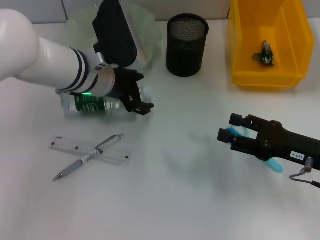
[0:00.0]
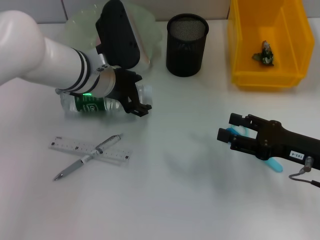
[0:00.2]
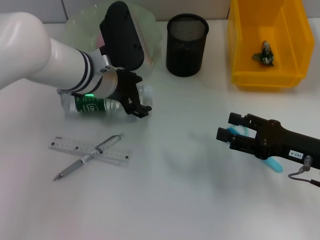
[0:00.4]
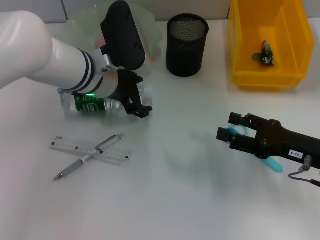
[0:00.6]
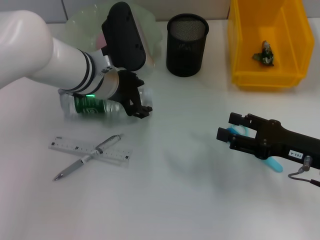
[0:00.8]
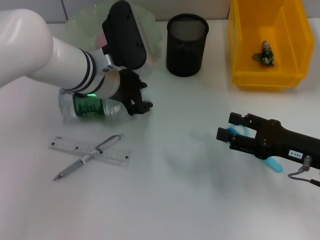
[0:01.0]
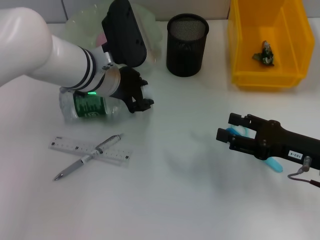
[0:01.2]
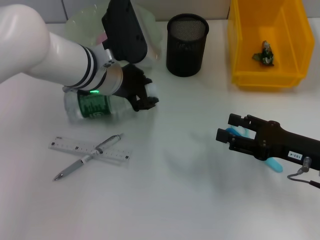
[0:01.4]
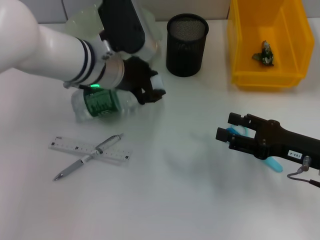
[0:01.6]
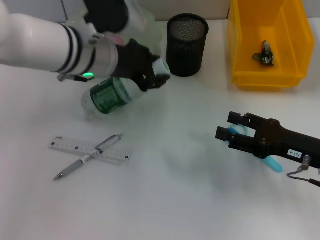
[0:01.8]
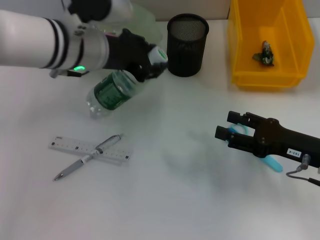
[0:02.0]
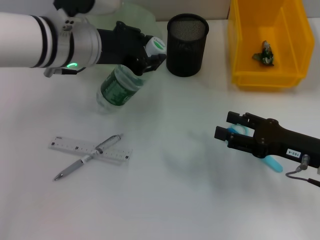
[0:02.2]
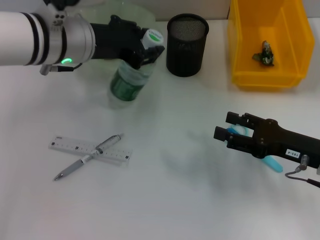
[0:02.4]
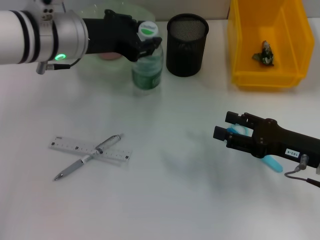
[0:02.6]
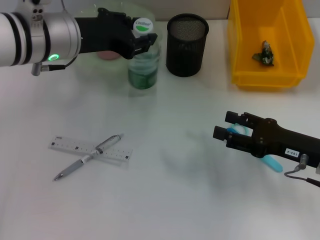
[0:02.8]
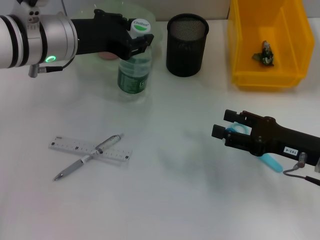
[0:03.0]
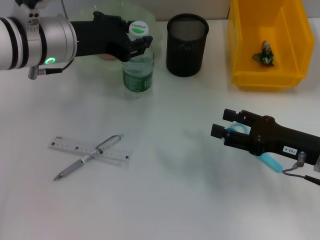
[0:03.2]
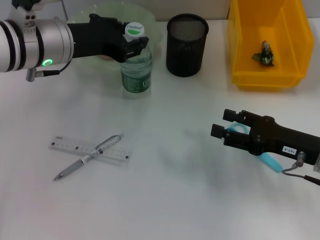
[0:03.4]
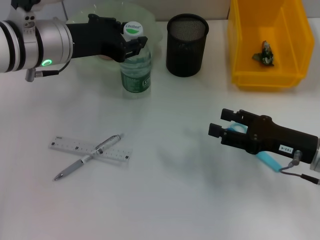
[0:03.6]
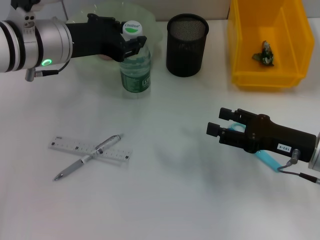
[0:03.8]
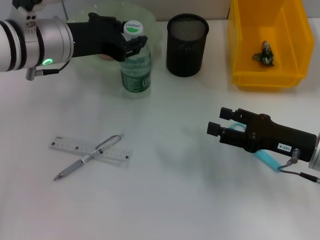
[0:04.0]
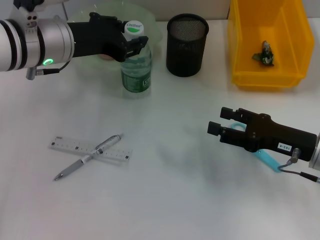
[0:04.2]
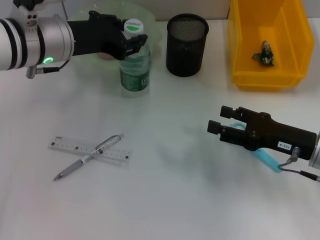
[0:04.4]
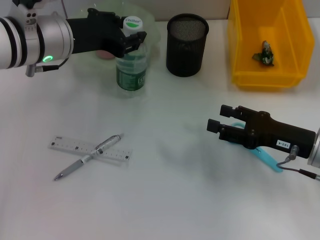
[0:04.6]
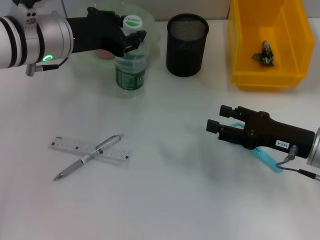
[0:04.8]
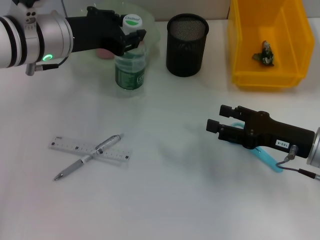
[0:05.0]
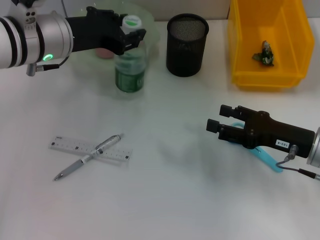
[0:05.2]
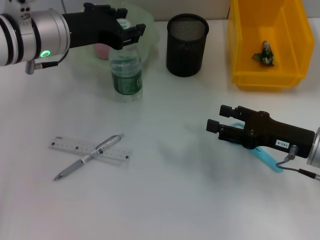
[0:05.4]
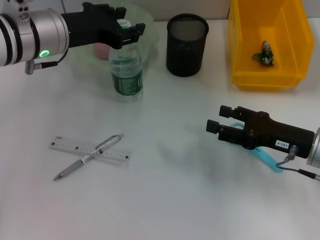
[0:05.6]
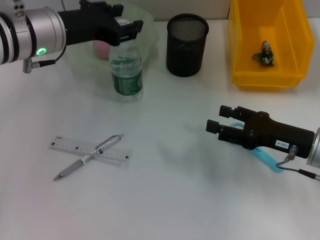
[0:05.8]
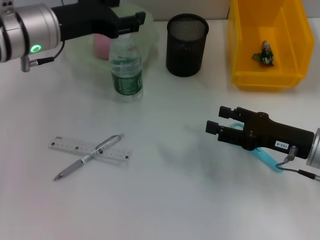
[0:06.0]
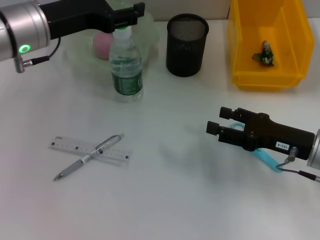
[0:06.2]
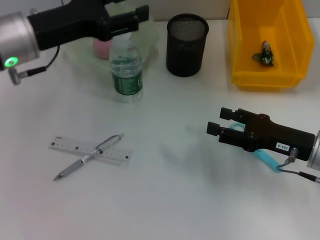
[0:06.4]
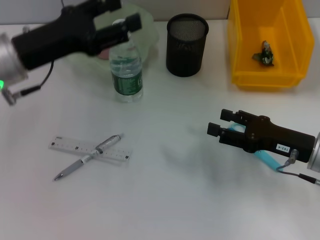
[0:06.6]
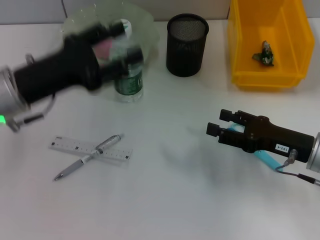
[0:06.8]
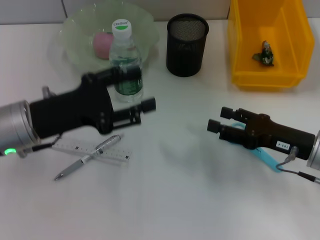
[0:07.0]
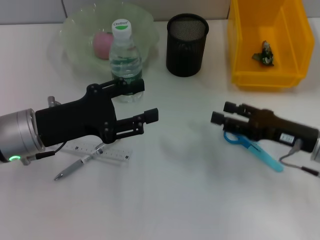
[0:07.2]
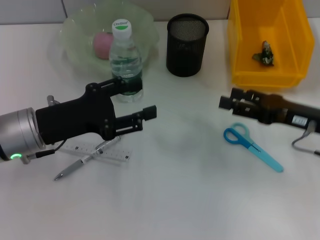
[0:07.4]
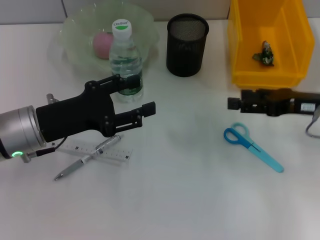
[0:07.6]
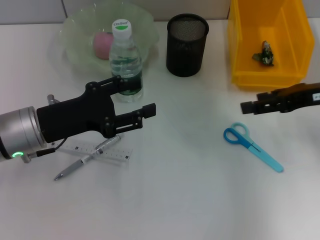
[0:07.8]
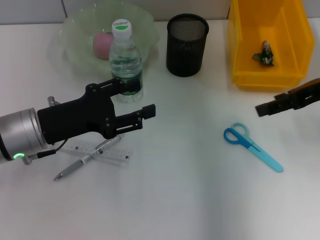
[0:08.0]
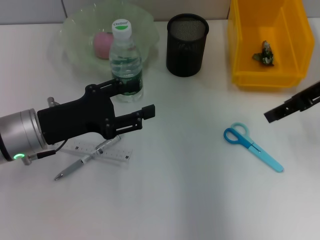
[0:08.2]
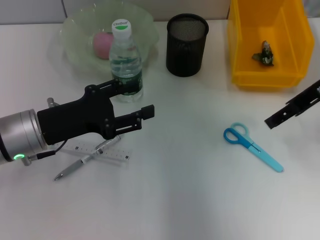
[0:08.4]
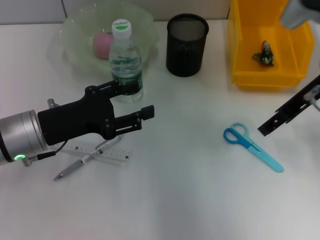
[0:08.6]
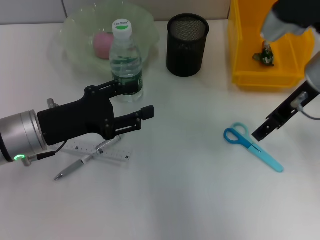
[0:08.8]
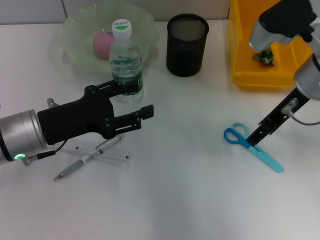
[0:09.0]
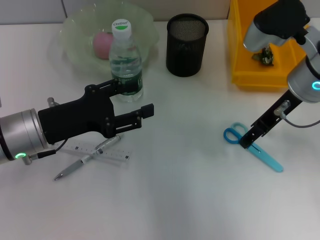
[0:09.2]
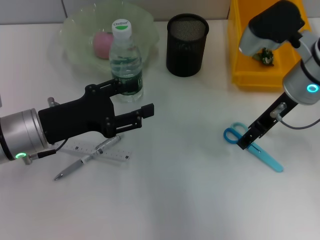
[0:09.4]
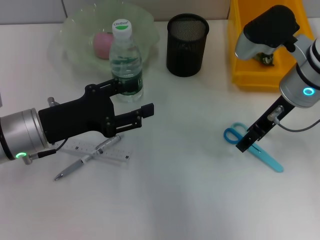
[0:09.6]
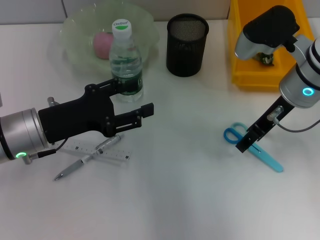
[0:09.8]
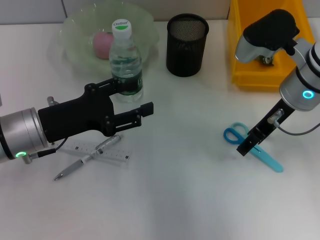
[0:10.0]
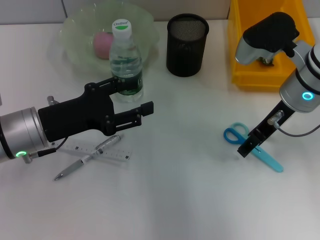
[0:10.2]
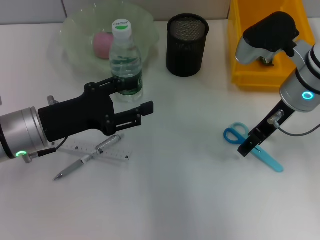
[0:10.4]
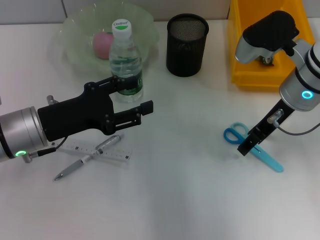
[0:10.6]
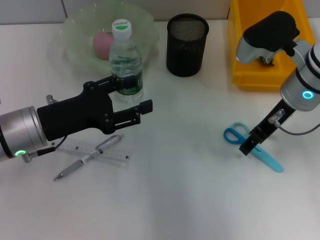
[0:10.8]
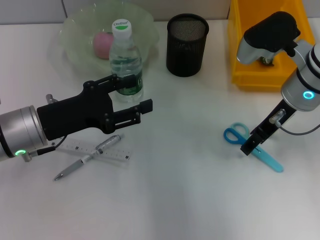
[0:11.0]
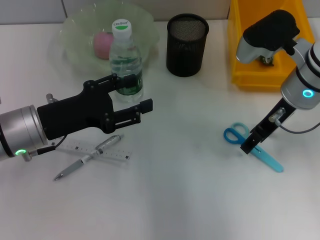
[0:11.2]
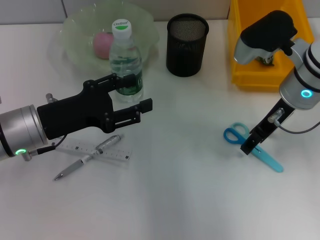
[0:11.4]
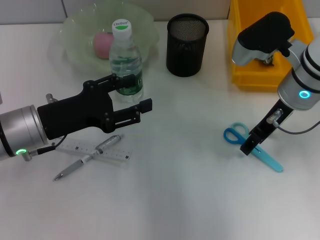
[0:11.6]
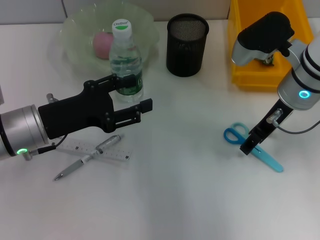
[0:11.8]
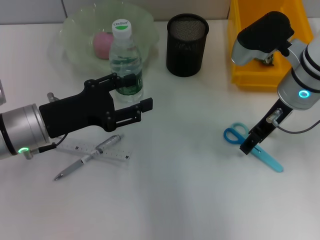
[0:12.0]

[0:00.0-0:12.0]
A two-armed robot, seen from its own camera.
Step, 0:01.2 to 0:06.0: Place the water bottle on the table with the left hand.
0:00.0 to 0:01.6: The left gripper closes its fingers.
0:01.6 to 0:03.0: The left gripper travels to the left by roughly 5 cm.
0:03.0 to 0:04.4: Both grippers stay put.
0:04.4 to 0:06.0: There are only small adjustments of the grippers.
0:06.0 to 0:07.6: The left gripper is displaced downward and backward by some 15 cm, while the right gripper travels upward by about 5 cm.
0:07.6 to 0:09.0: The right gripper moves to the left and upward, roughly 10 cm.
0:09.0 to 0:10.4: The grippers stay close to where they were, moving slightly.
0:10.4 to 0:12.0: Both grippers stay about where they are.

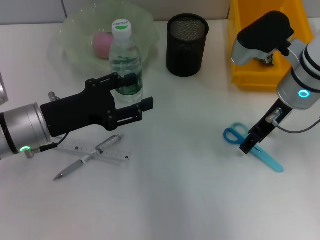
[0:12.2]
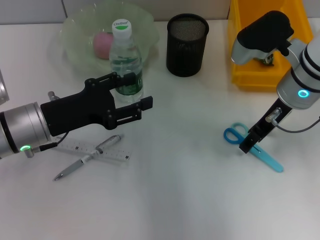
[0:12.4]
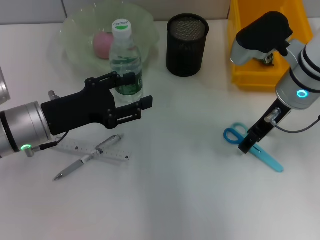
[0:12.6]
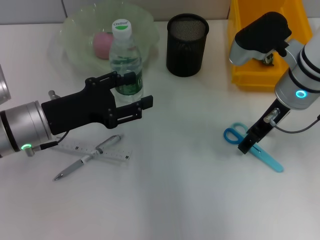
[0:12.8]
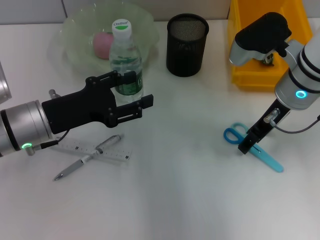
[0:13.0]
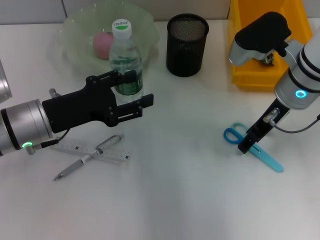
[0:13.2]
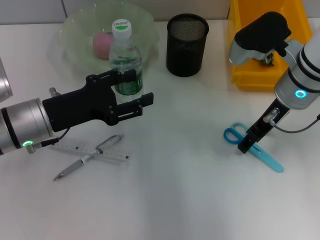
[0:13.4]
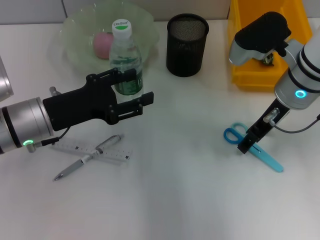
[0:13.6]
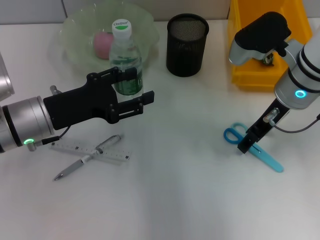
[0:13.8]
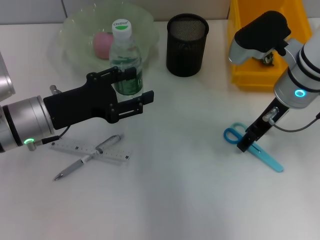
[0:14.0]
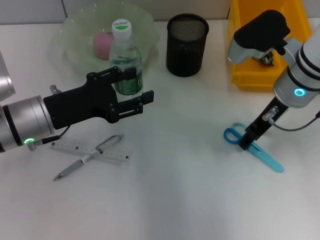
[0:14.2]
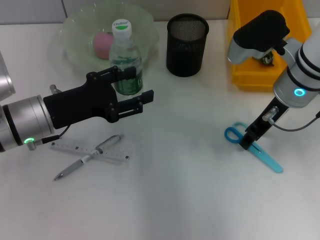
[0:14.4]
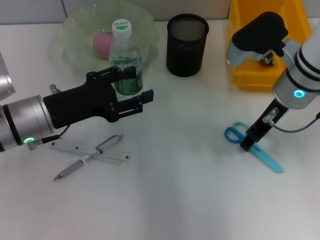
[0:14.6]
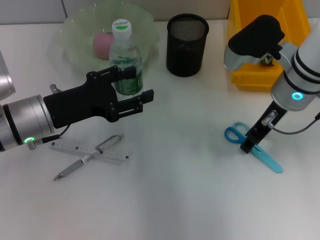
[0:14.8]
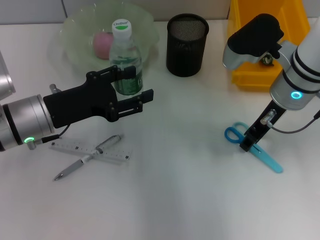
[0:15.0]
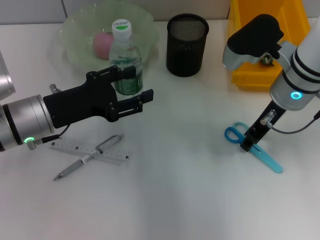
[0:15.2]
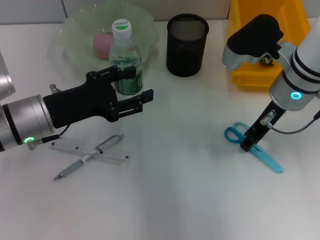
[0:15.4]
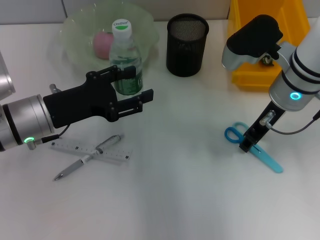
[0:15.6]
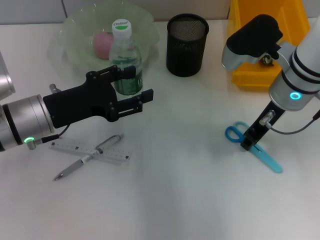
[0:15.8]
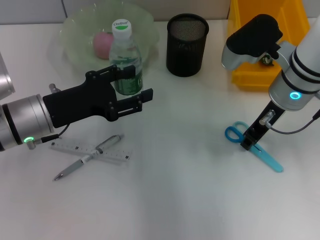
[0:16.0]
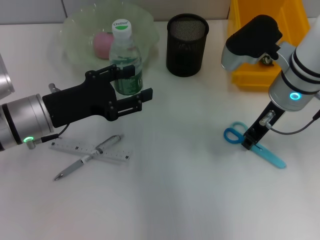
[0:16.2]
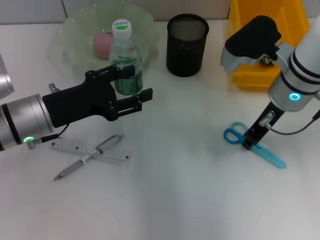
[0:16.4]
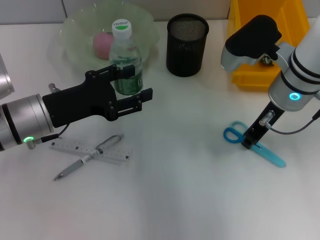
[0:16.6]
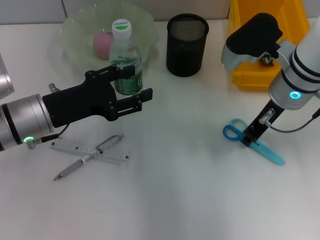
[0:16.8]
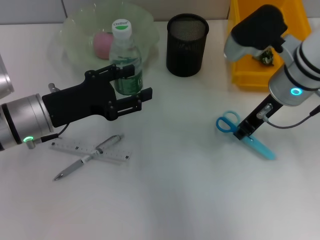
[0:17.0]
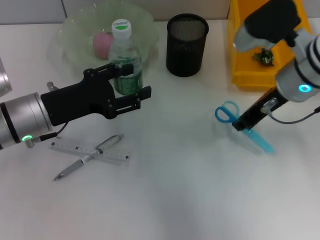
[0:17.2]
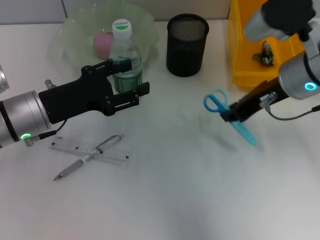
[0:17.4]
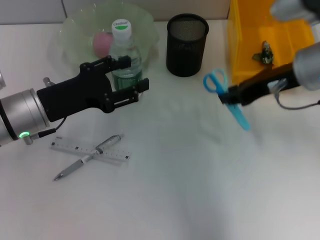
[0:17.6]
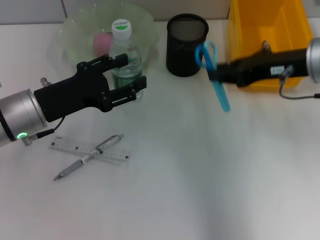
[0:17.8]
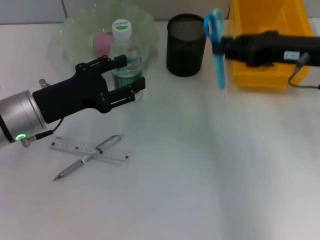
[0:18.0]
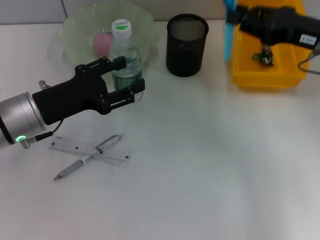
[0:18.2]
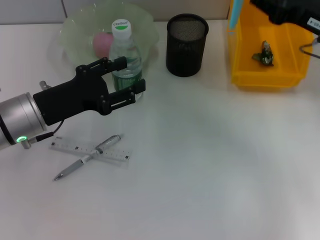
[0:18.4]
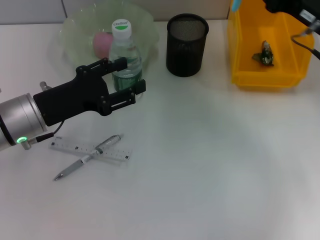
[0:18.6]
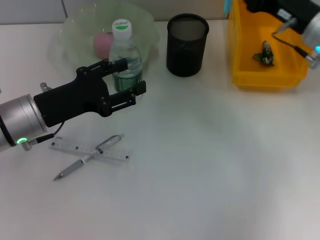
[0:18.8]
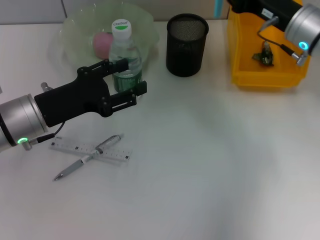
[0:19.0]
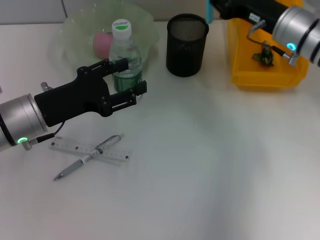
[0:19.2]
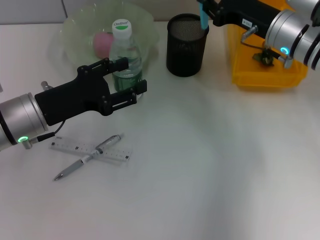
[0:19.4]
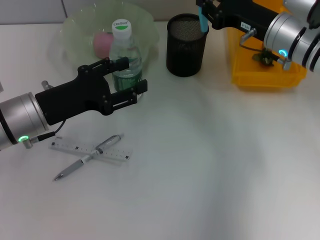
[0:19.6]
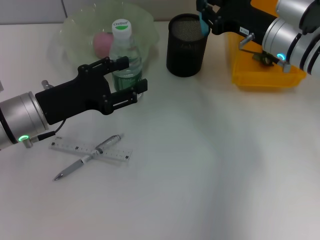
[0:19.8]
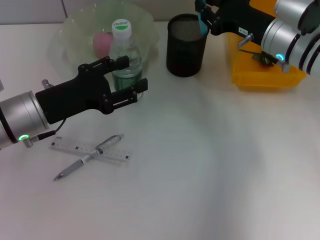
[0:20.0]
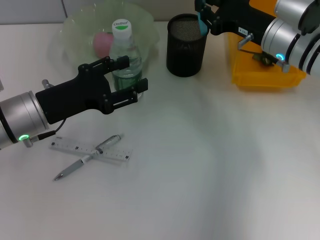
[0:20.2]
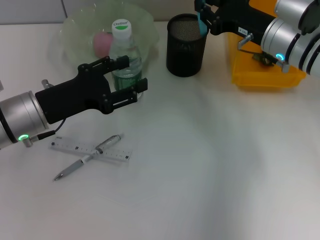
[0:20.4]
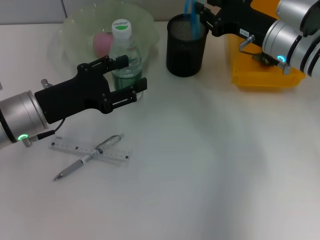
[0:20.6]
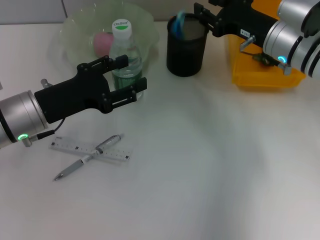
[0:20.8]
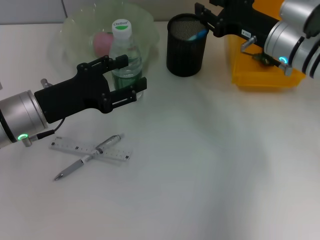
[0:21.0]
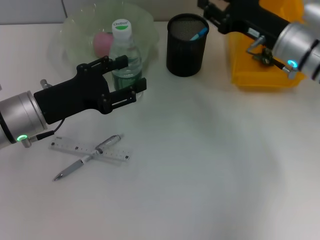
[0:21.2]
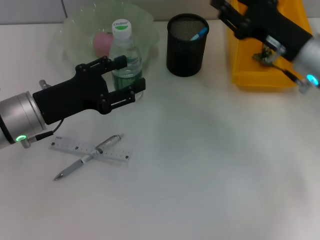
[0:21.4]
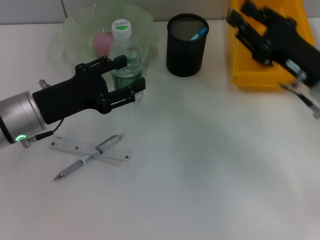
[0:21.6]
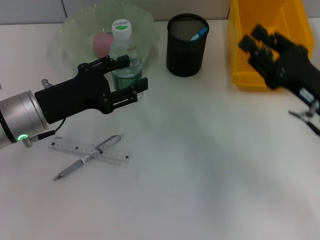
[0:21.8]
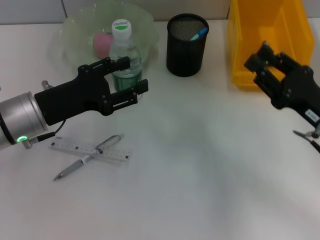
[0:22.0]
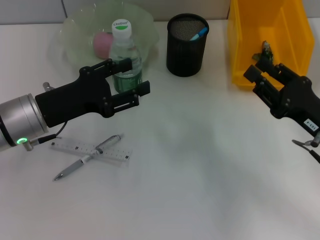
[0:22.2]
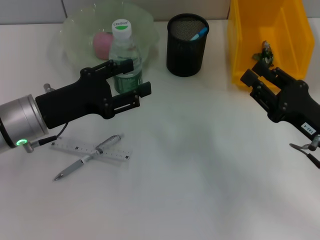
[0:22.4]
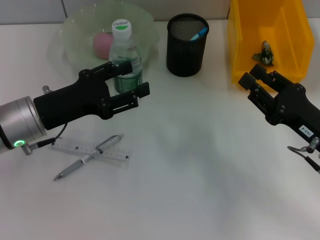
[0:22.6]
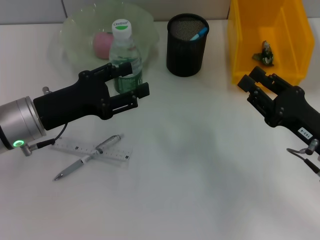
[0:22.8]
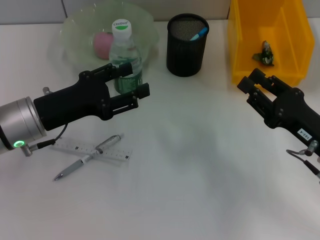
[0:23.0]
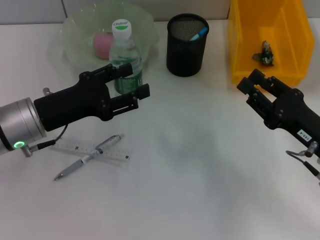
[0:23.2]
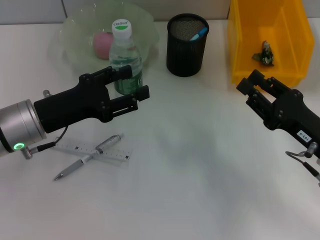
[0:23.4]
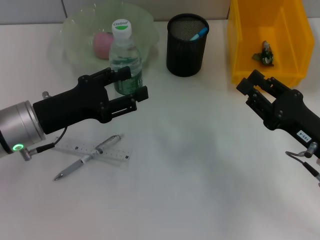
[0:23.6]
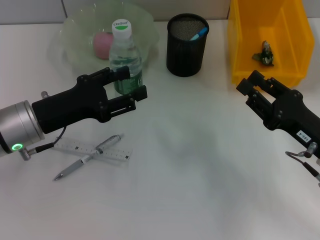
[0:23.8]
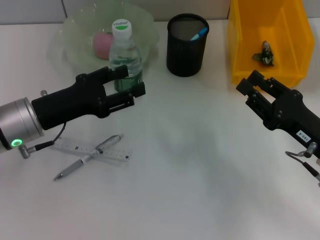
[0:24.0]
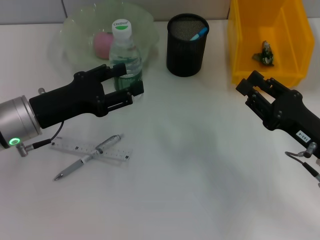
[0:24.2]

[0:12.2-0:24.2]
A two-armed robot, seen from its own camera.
Step, 0:12.2 to 0:16.6: Grab the blue scissors with the right hand.
Step, 0:16.8 to 0:21.4: Place the blue scissors into the pen holder with the right hand.
0:12.2 to 0:15.2: Neither gripper changes place.
0:15.2 to 0:16.6: The right gripper closes up.
0:16.6 to 0:18.2: The right gripper travels to the right by roughly 10 cm.
0:18.2 to 0:19.8: The right gripper travels forward, to the left and downward by roughly 10 cm.
0:19.8 to 0:21.2: There are only small adjustments of the grippers.
0:21.2 to 0:22.6: The right gripper shifts about 15 cm backward and downward.
0:22.6 to 0:24.2: The grippers make only small movements.
